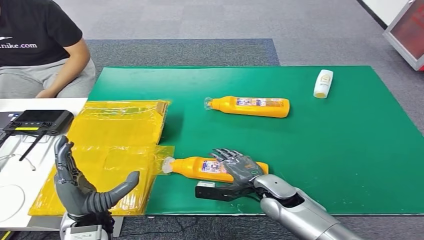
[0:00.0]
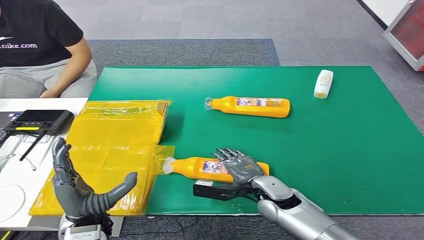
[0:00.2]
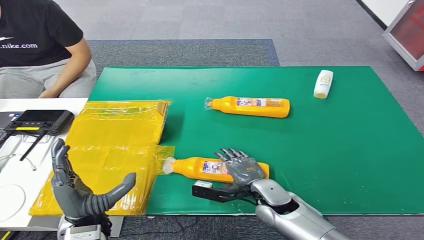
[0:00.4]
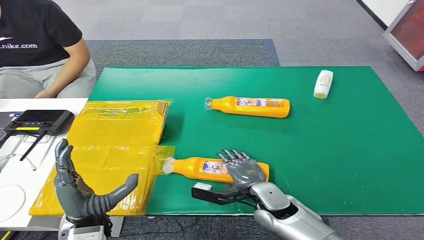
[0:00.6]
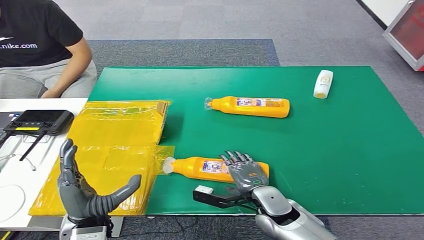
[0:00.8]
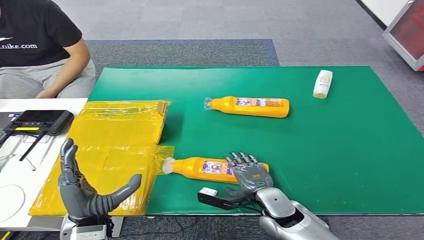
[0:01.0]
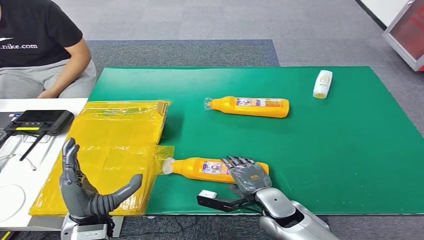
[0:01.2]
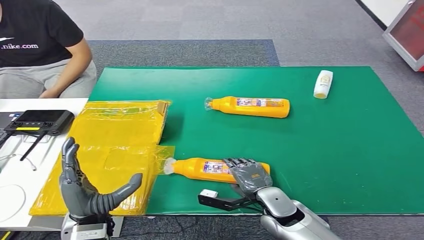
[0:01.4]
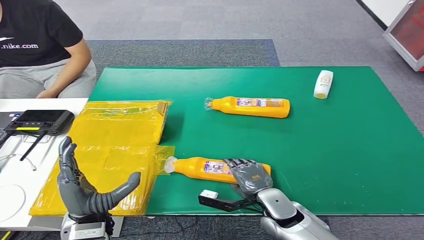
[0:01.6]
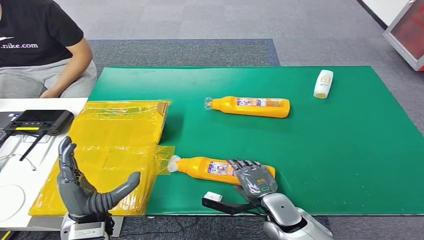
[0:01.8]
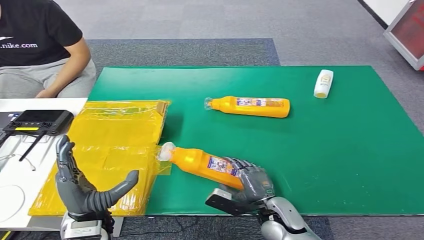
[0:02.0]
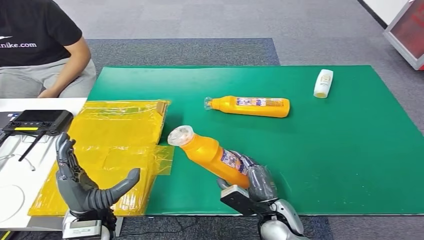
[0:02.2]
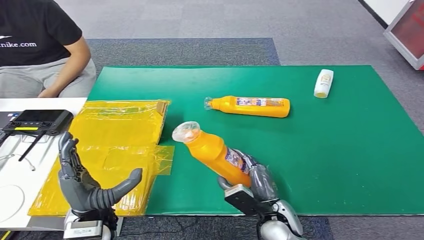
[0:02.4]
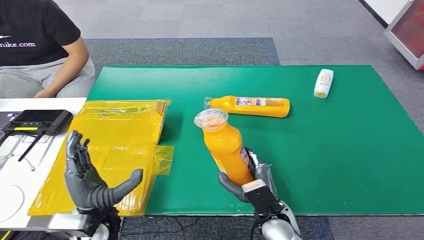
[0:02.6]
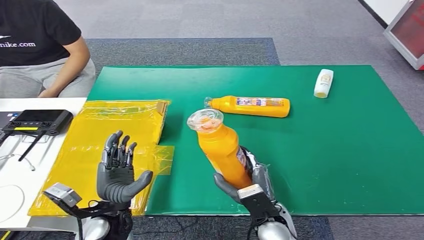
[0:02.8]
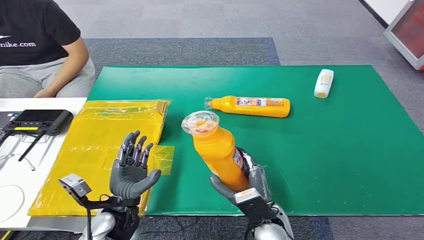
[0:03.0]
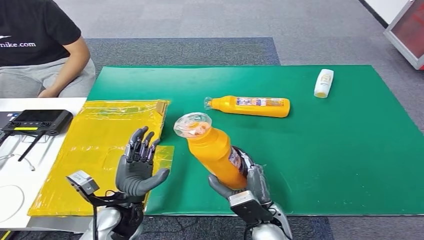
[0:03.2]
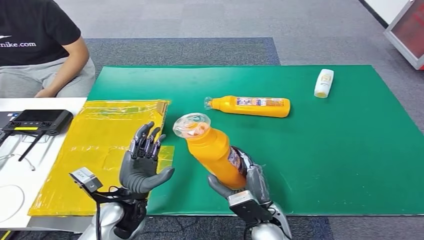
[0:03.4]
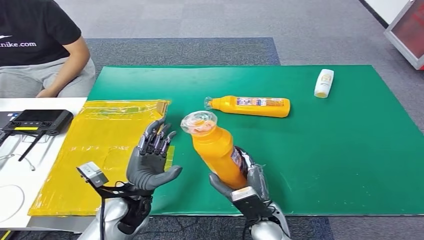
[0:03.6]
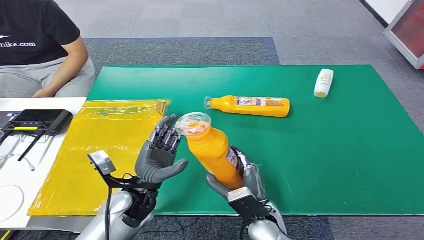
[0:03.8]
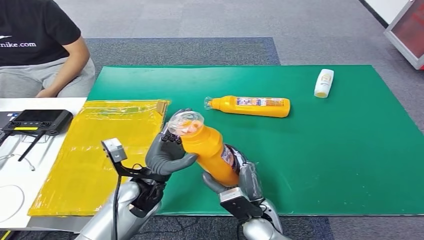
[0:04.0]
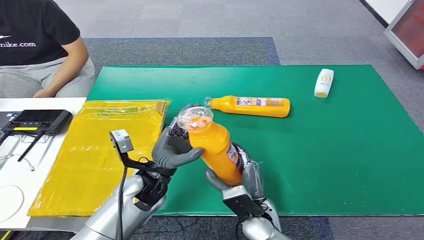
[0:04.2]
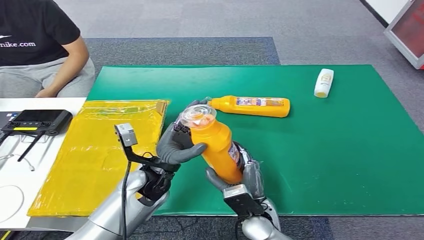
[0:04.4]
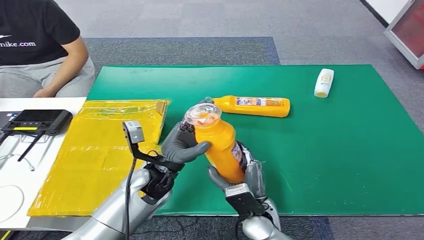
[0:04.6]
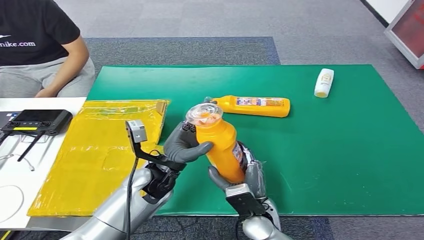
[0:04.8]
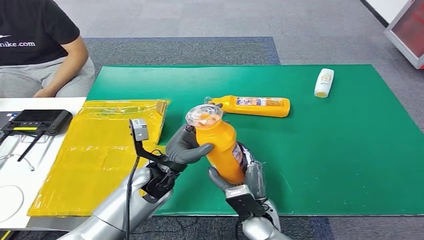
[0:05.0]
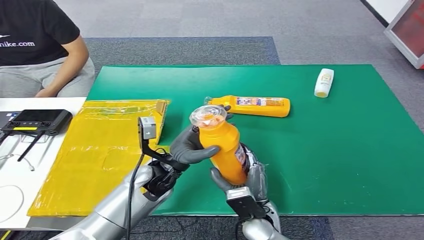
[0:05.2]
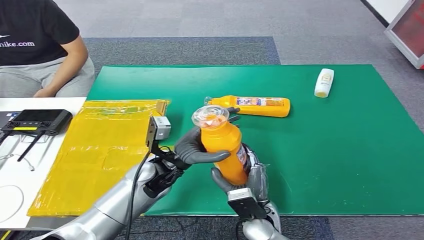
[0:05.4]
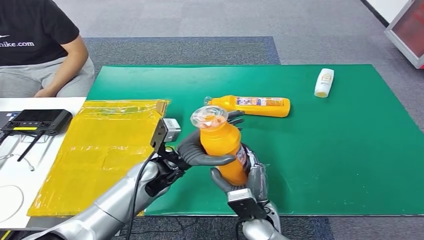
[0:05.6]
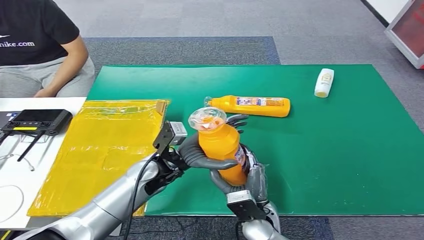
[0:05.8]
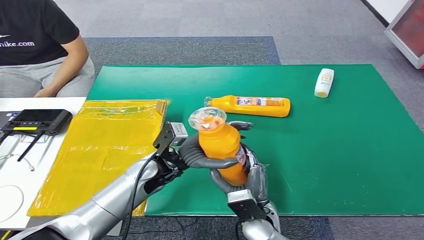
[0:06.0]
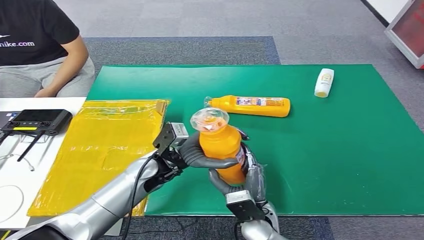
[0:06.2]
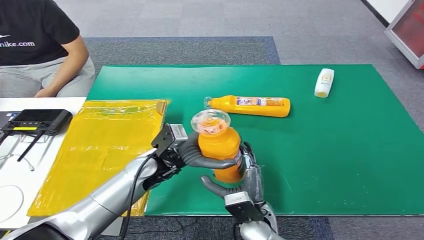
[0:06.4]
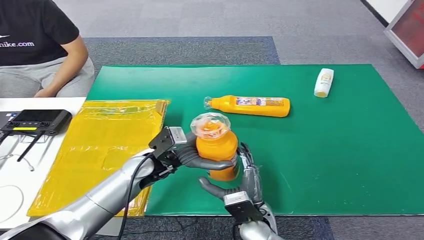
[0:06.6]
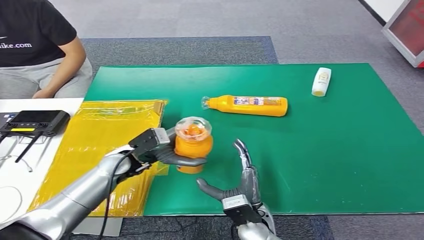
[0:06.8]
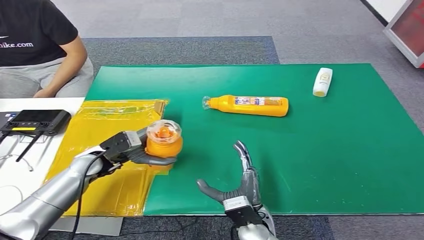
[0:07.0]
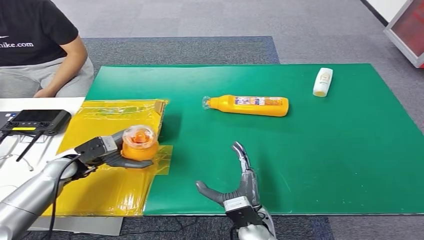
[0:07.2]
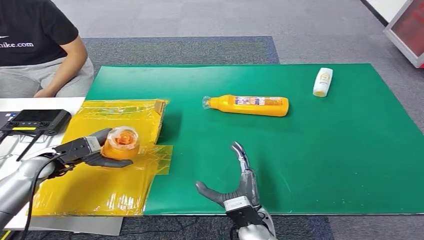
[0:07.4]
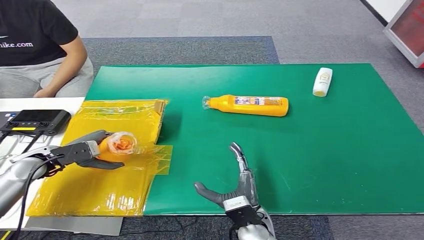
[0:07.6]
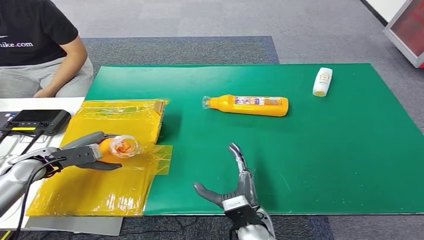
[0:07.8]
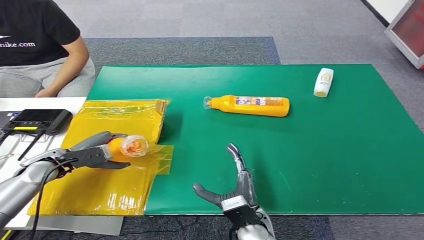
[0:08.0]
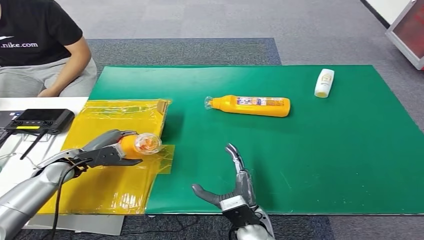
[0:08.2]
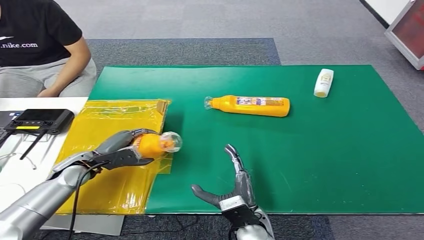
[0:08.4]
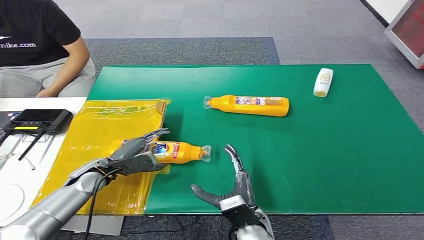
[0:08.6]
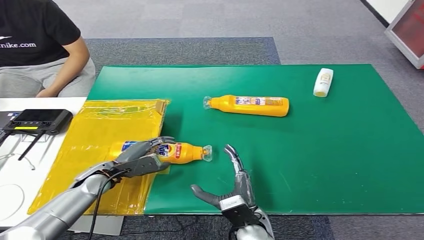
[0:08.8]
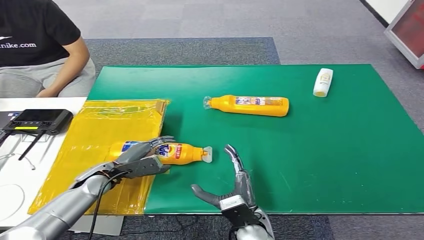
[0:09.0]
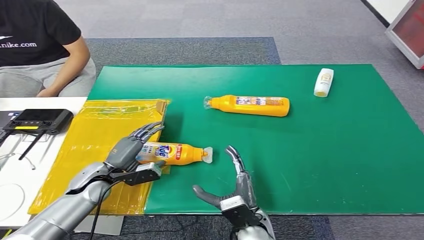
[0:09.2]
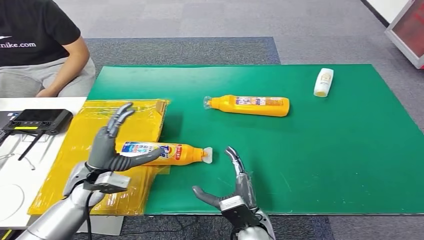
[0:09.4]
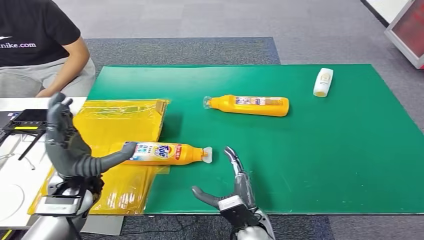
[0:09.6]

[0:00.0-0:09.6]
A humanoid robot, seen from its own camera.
Step, 0:00.0 to 0:03.2: Pick up the bottle from the table.
Step, 0:03.4 to 0:09.4: Turn the bottle to the front side.
0:00.0 to 0:01.6: The hands stay close to where they were, moving slightly.
0:01.6 to 0:03.2: The left hand shifts by about 5 cm. Meanwhile the right hand shifts by some 5 cm.
0:03.2 to 0:04.8: The left hand moves forward, to the right and upward, roughly 10 cm.
0:06.4 to 0:08.0: The left hand moves to the left, roughly 25 cm.
0:08.0 to 0:09.6: The left hand moves to the right, backward and upward, roughly 15 cm.
